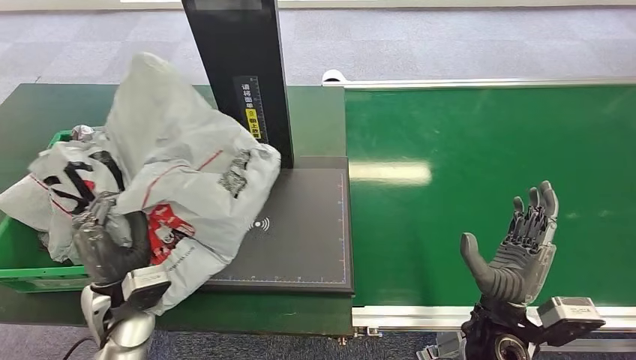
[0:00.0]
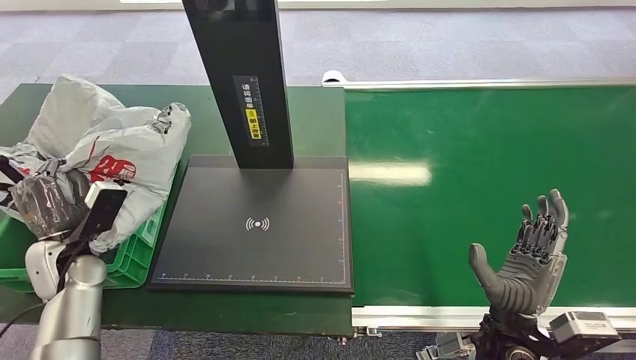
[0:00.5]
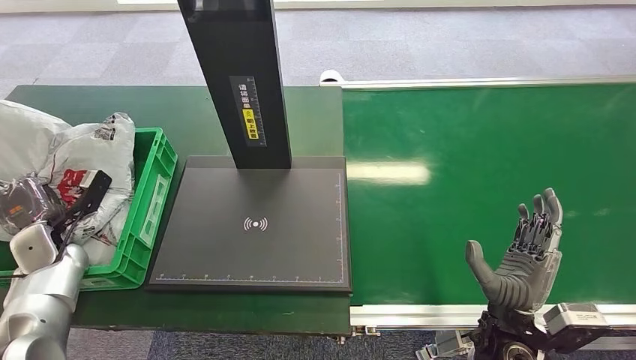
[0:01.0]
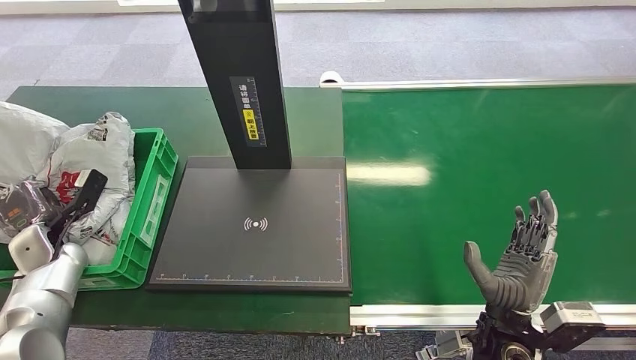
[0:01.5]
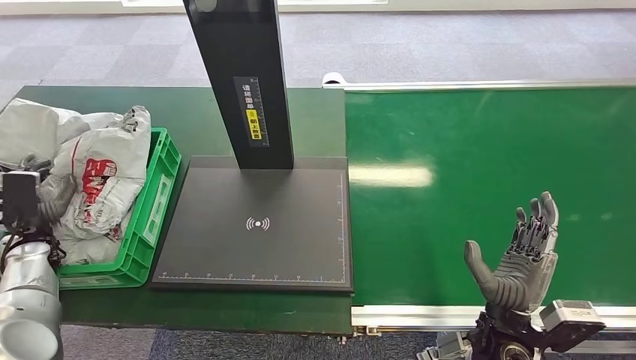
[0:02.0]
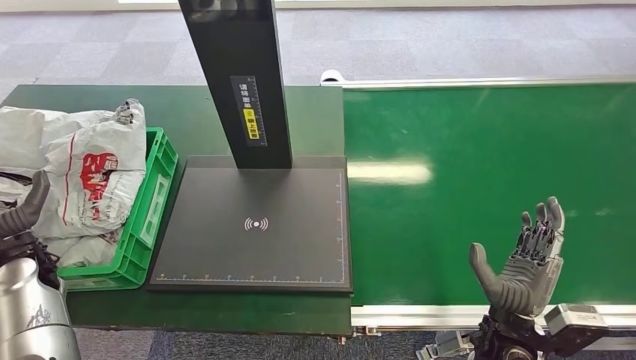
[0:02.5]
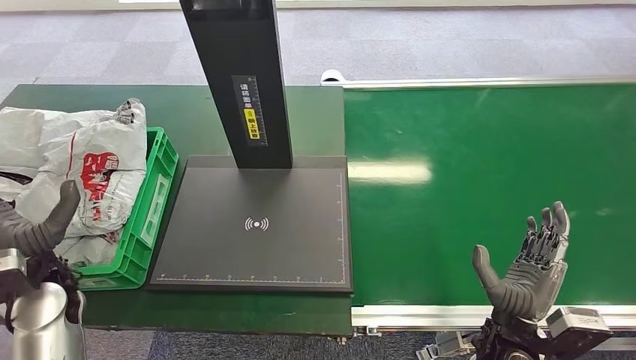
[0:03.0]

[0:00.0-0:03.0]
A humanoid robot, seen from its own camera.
Step, 0:01.0 to 0:03.0: Place the package into the parcel locker.
0:01.5 to 0:03.0: The left hand travels to the right, backward and upward by about 15 cm.
